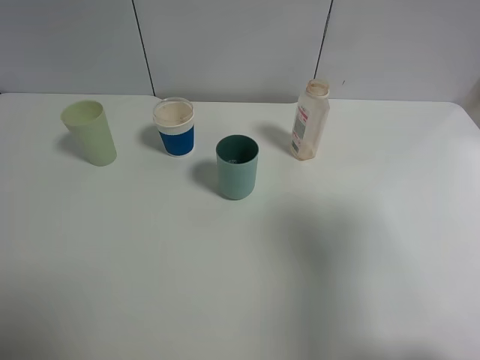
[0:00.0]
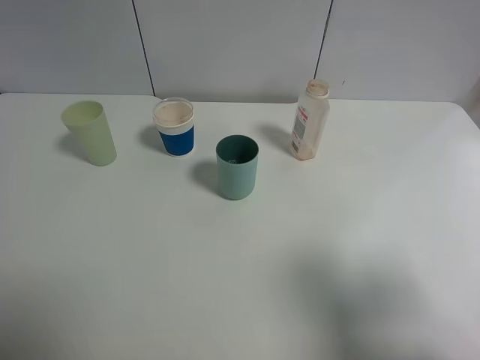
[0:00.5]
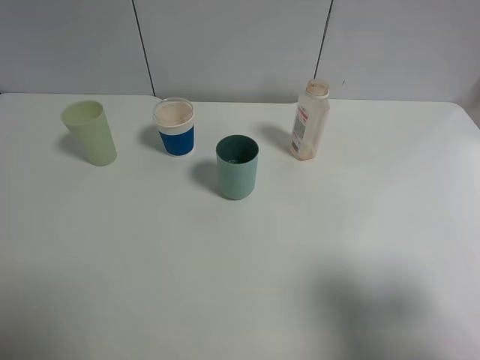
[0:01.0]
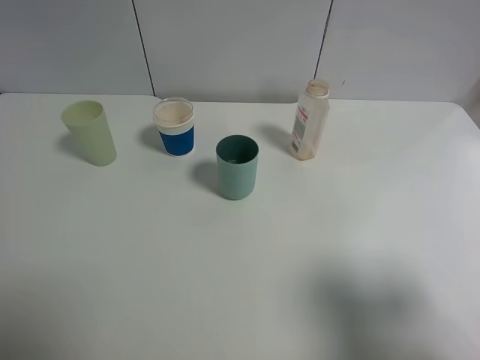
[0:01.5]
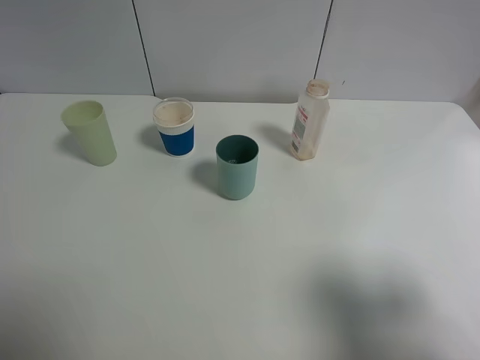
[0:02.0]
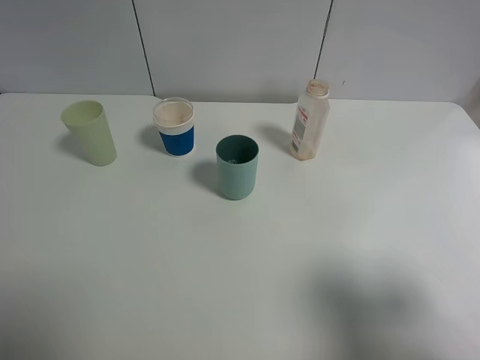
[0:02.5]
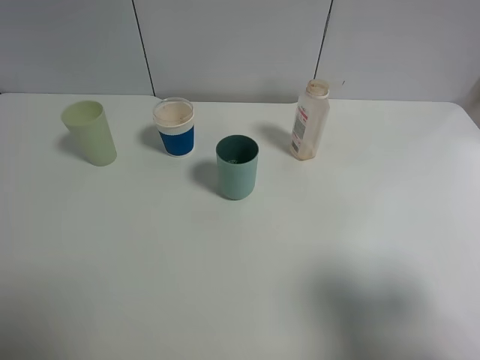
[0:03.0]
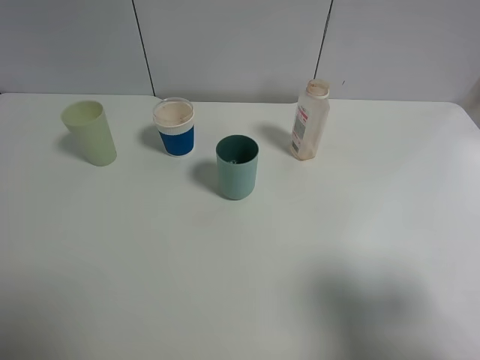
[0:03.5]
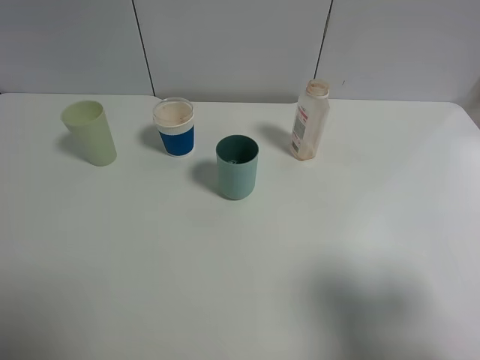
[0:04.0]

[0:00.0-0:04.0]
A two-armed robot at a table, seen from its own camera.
Task of the whole recording: use a gripper to hold the bottle of the drink and pour it into a random cup.
0:00.0 to 0:02.0: The right gripper travels downward and backward by some 10 cm.
0:02.0 to 0:04.0: Neither gripper changes place.
